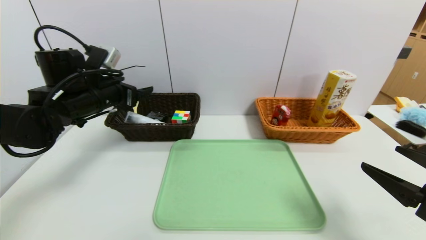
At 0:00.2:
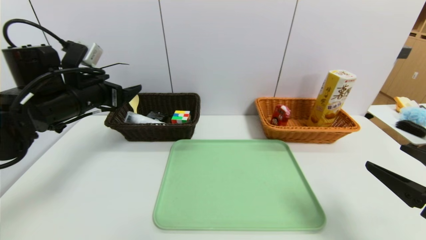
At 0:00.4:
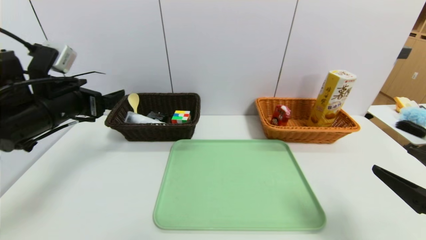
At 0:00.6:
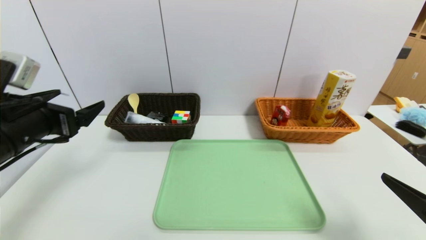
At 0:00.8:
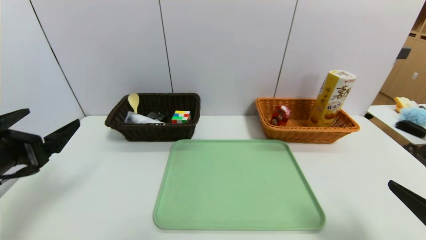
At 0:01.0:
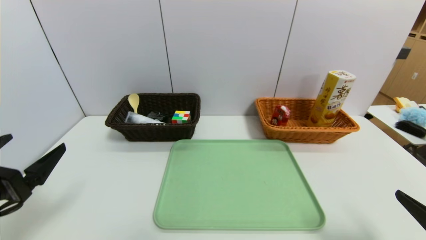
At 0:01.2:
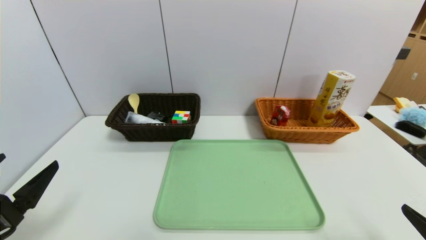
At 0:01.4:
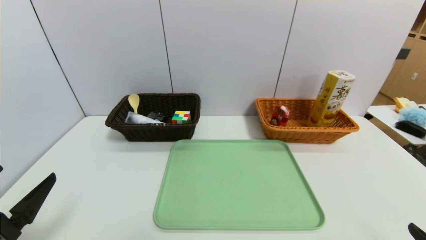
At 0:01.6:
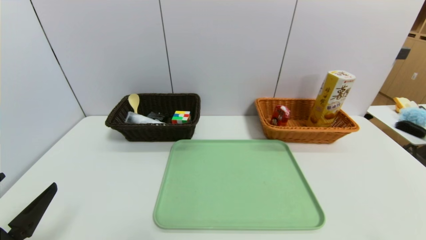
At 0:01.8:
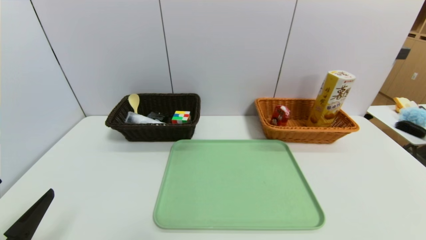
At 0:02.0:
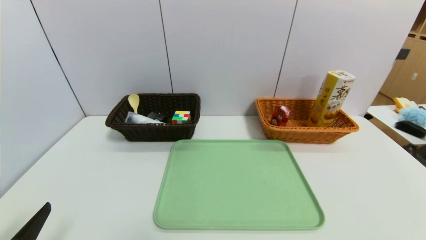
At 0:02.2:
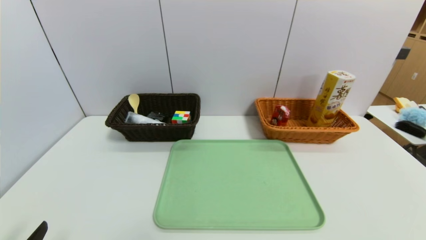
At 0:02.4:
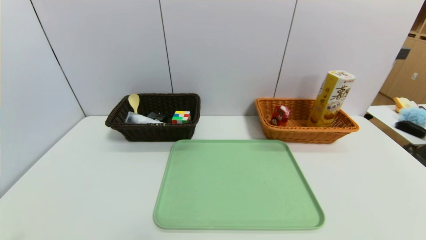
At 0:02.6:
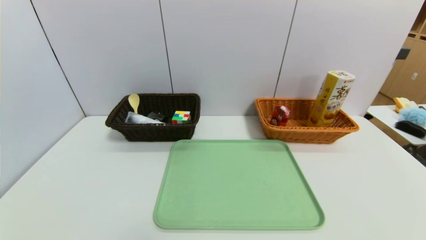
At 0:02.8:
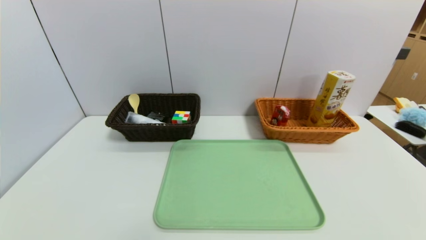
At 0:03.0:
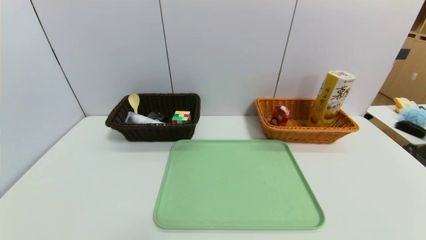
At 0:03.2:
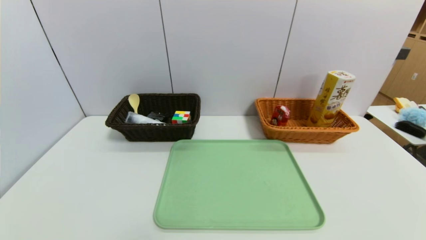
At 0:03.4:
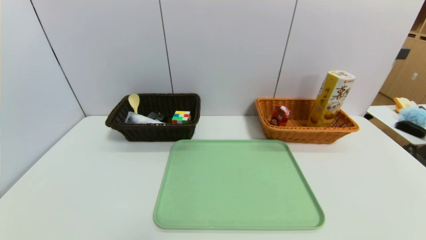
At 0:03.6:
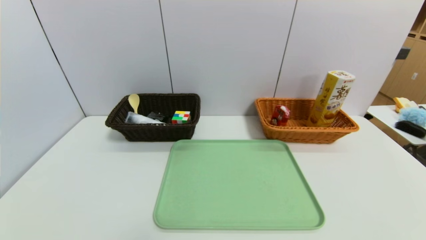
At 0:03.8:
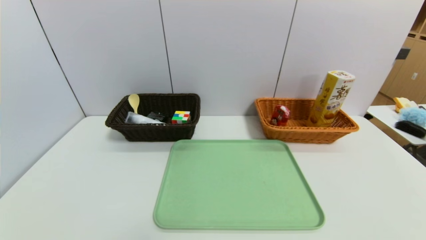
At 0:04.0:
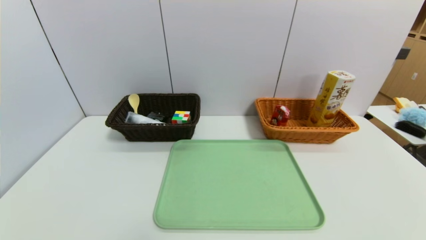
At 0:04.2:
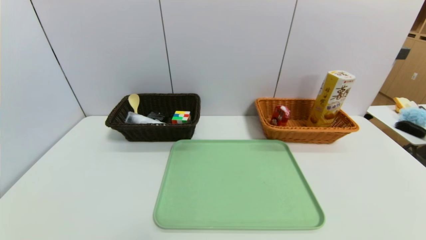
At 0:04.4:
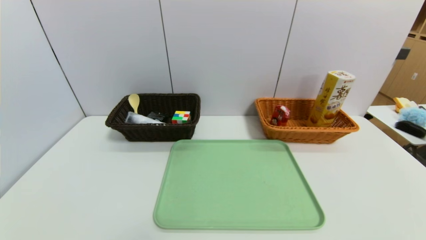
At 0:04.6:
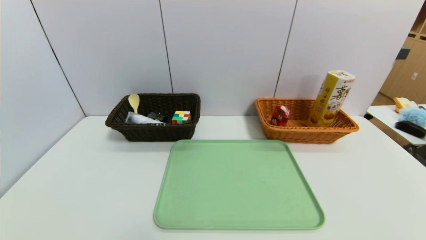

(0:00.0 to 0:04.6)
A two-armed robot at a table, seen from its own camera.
Task of the whole recording: place the food in the right basket with the right gripper, and place the non food items in the left basket with the left gripper.
0:00.0 - 0:01.6: The left gripper moves backward, approximately 25 cm. The right gripper goes about 15 cm backward and downward.
0:01.6 - 0:03.0: The left gripper heads downward and backward, covering about 10 cm.
0:03.0 - 0:04.6: Neither gripper changes place.
